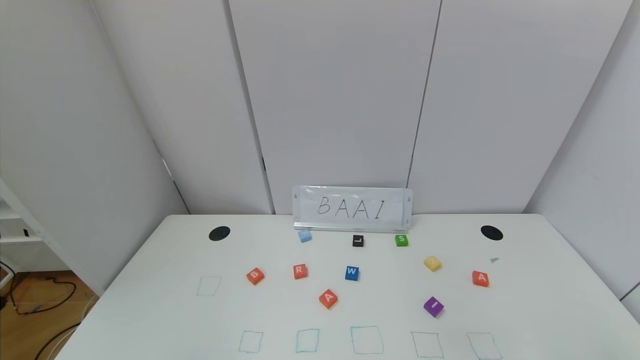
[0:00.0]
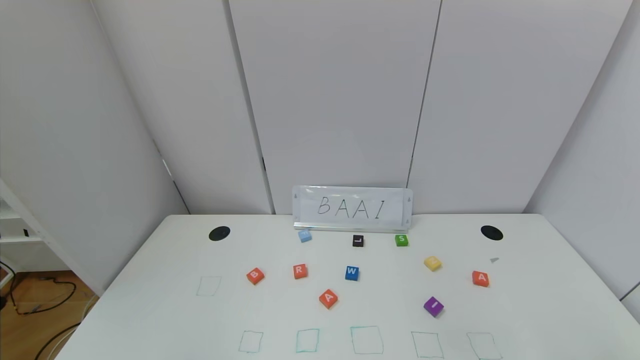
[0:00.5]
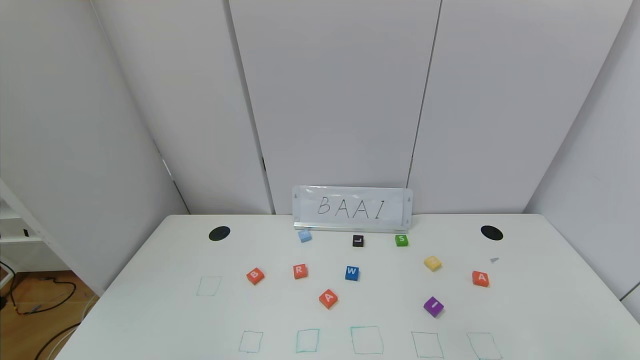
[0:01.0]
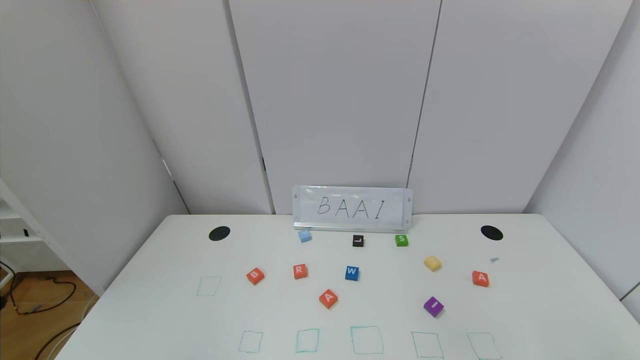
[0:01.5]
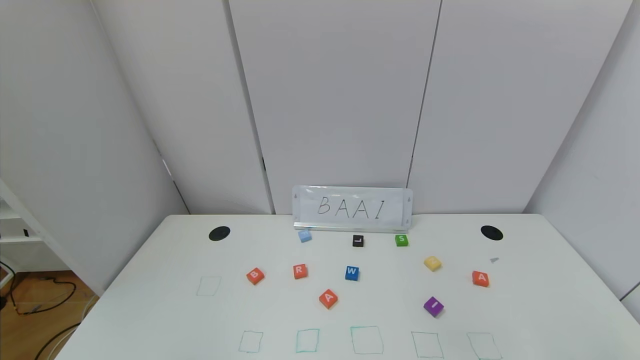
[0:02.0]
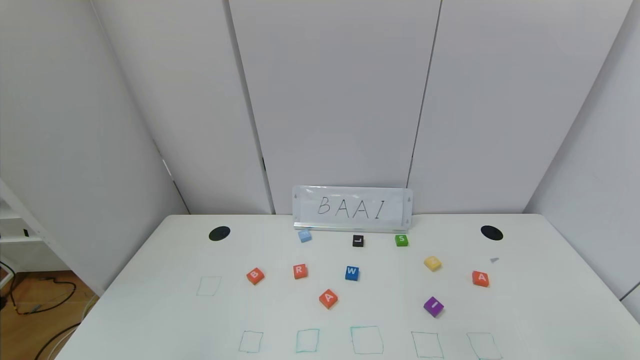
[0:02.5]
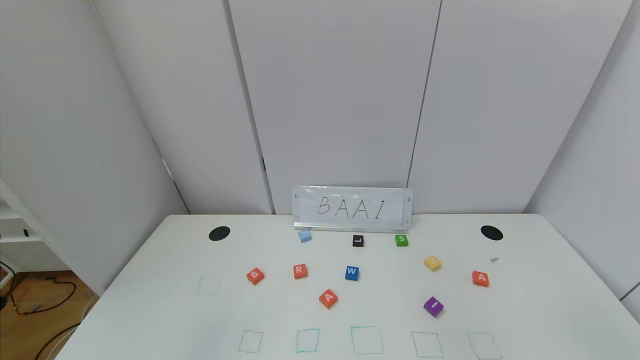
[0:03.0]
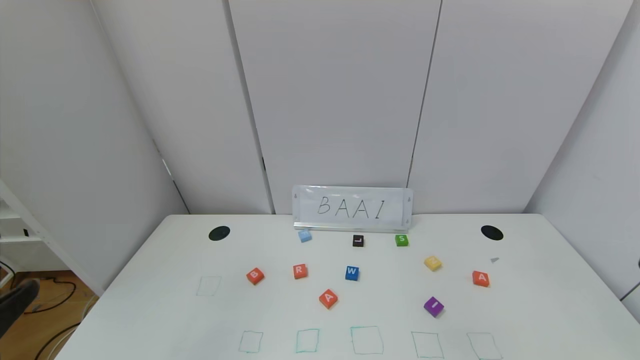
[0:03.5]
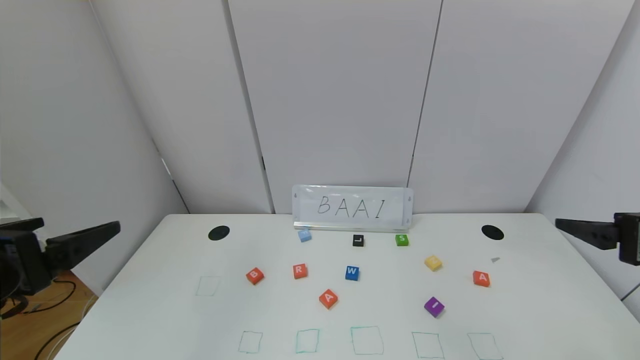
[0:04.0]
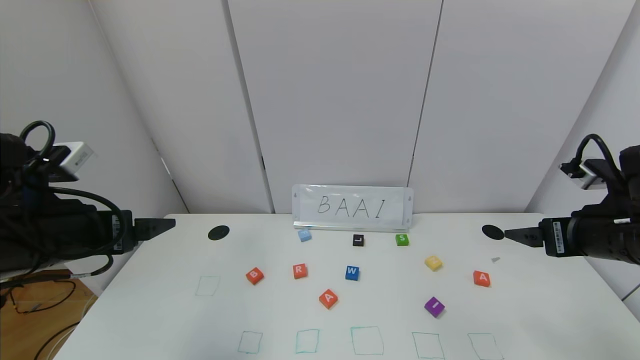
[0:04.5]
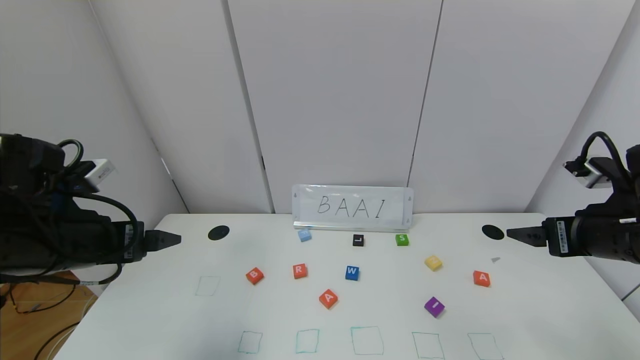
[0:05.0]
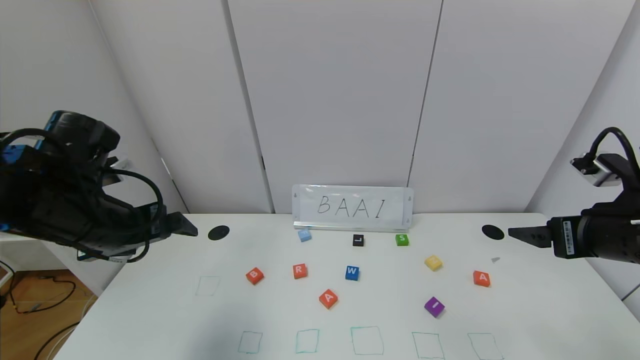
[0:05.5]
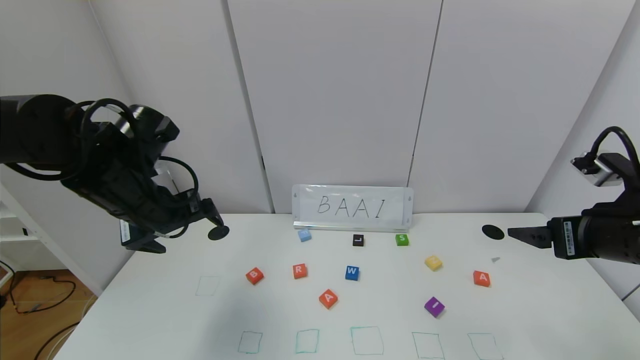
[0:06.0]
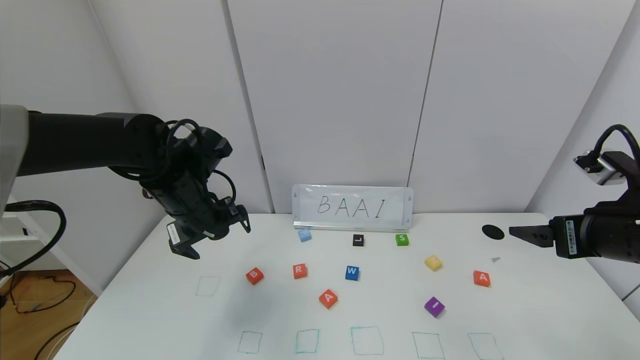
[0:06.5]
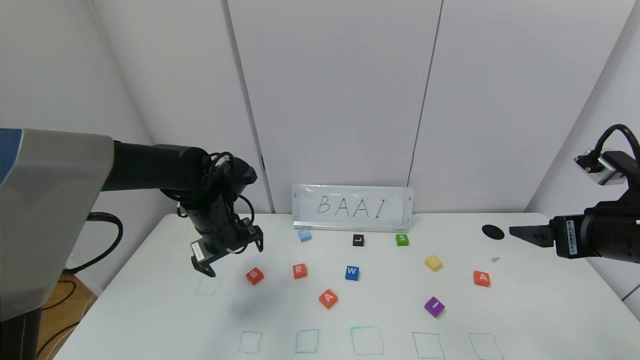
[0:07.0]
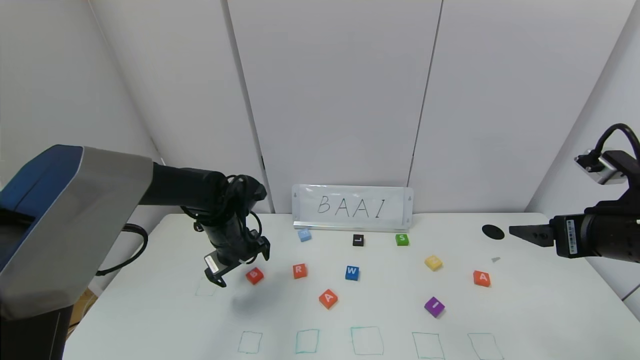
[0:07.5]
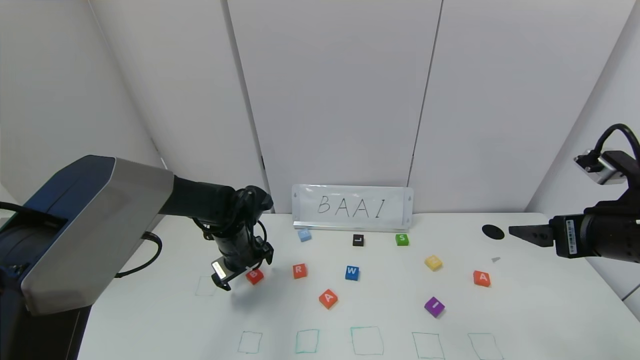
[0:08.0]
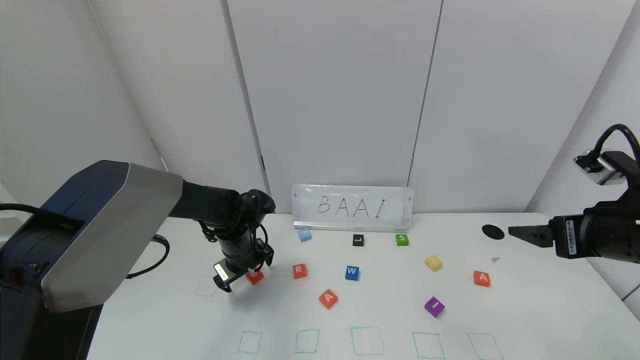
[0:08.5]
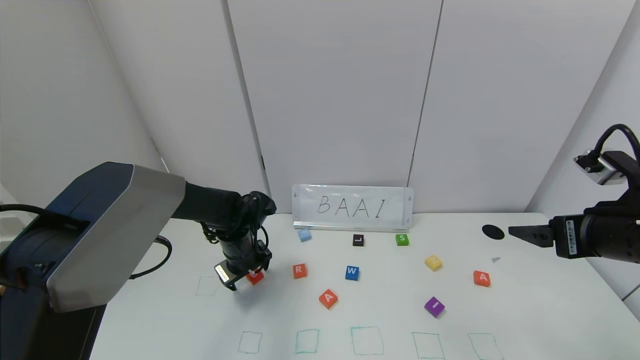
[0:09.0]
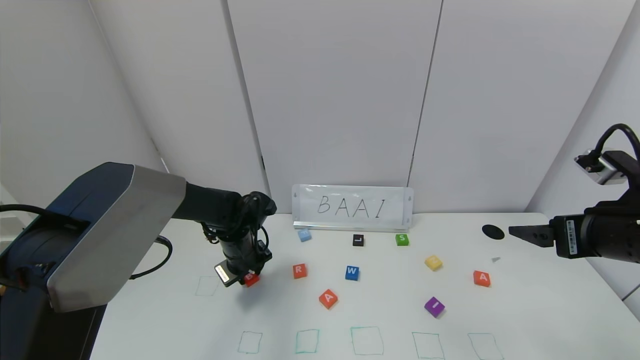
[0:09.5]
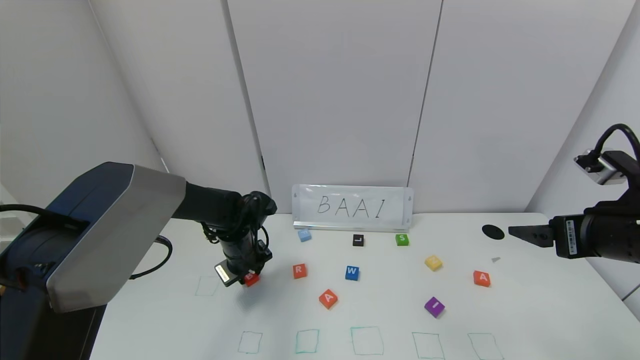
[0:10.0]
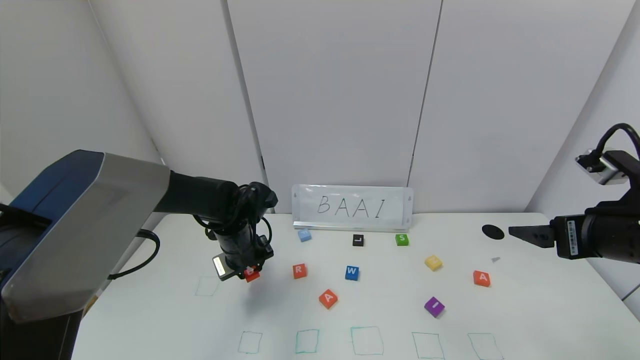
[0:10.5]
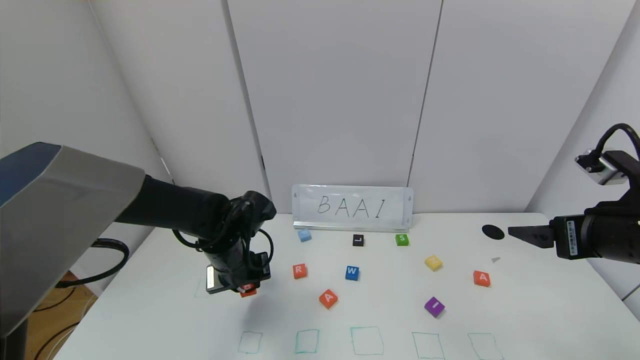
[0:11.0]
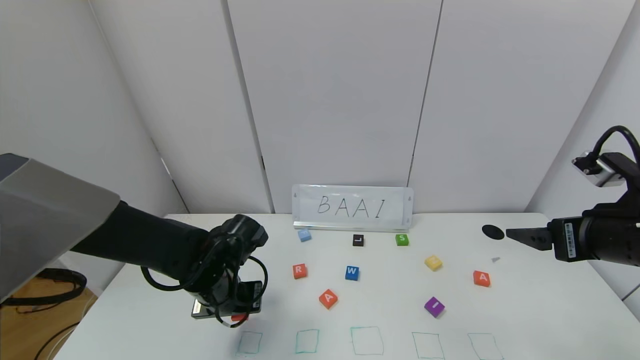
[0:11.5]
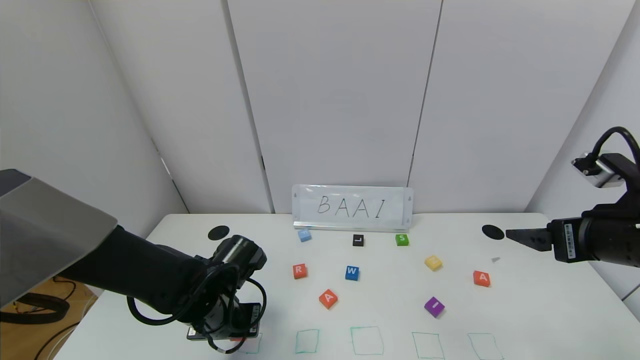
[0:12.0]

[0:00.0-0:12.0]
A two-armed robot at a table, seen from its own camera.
Task of the whole recording: use the gripper to find blocks with the letters b, a, a, and i on the table and arrange them into BAAI, then find r and N and turn the arranged baai into brian.
0:00.0 to 0:02.0: The two grippers keep their place.
0:02.0 to 0:04.0: The right gripper is displaced forward and upward by roughly 25 cm; the left gripper heads upward and forward, covering roughly 25 cm.
0:04.0 to 0:06.0: The right gripper moves roughly 5 cm. The left gripper heads forward, covering some 20 cm.
0:06.0 to 0:08.0: The left gripper is displaced downward, forward and to the right by about 20 cm.
0:08.0 to 0:10.0: The left gripper closes up.
0:10.0 to 0:12.0: The left gripper is displaced backward by approximately 15 cm.

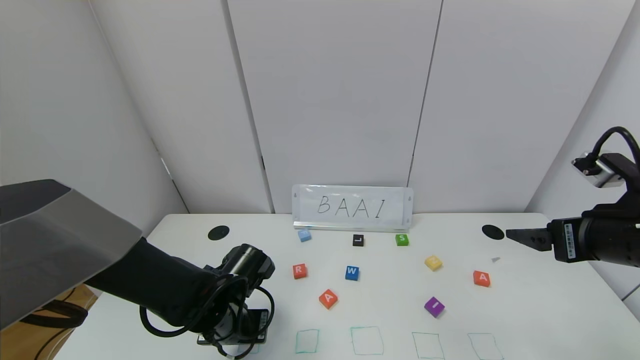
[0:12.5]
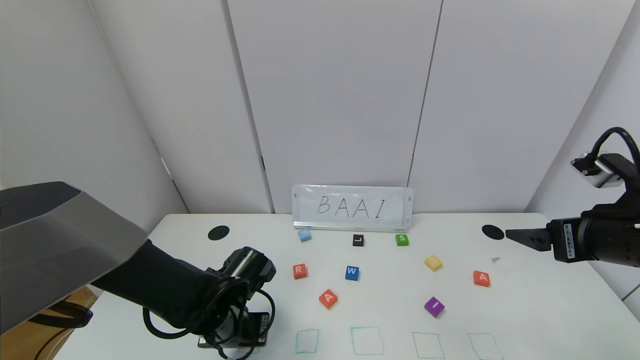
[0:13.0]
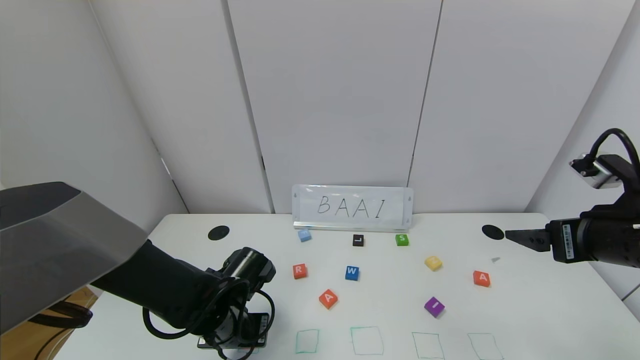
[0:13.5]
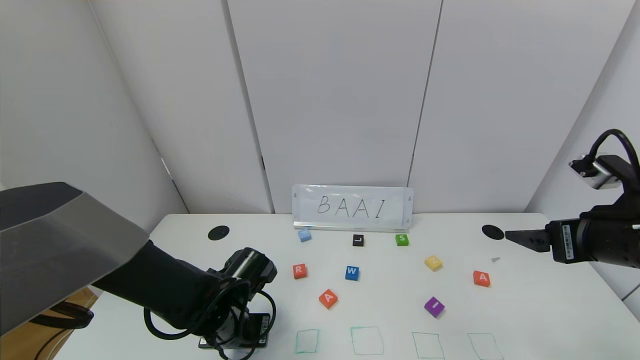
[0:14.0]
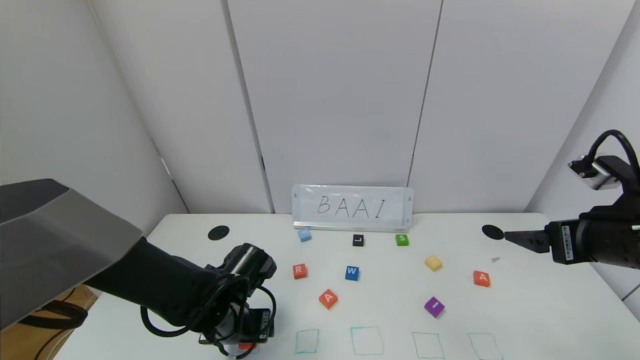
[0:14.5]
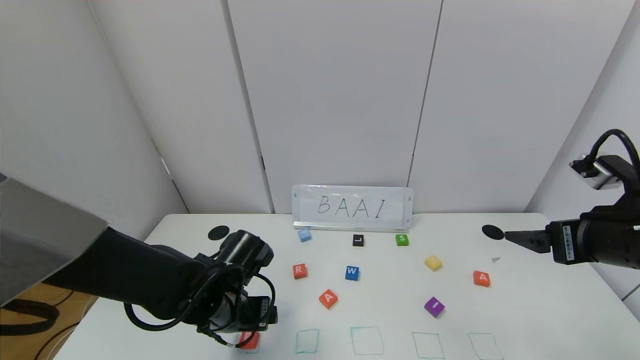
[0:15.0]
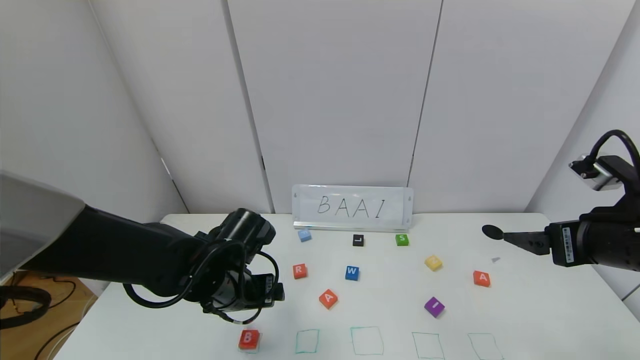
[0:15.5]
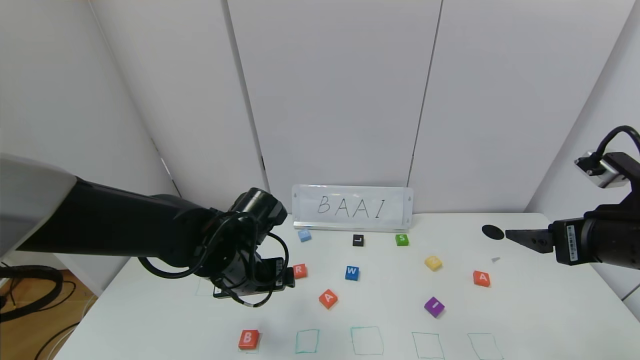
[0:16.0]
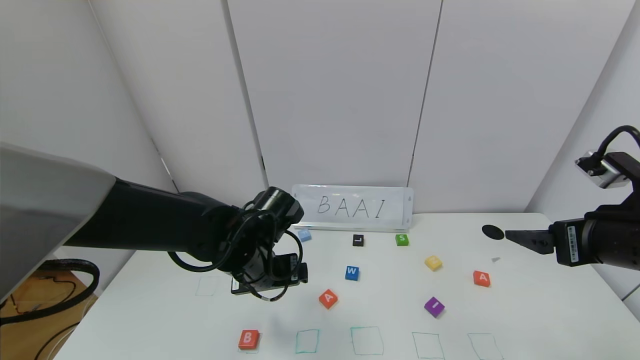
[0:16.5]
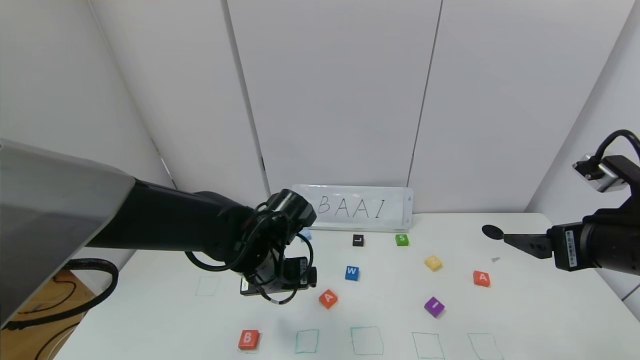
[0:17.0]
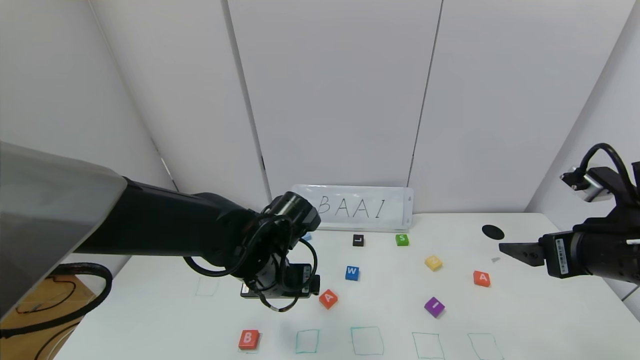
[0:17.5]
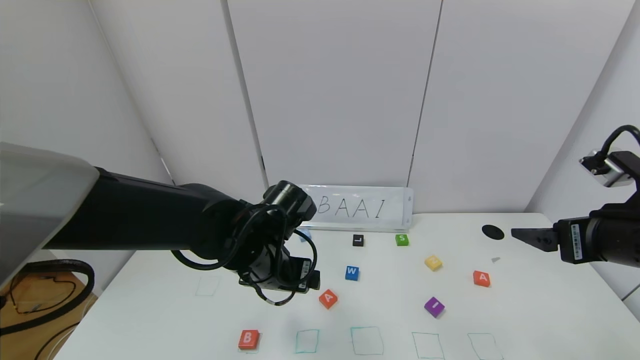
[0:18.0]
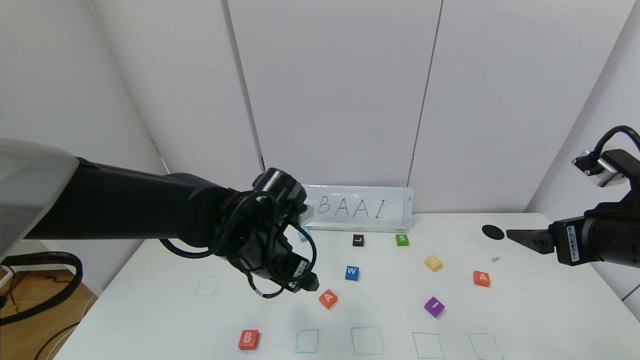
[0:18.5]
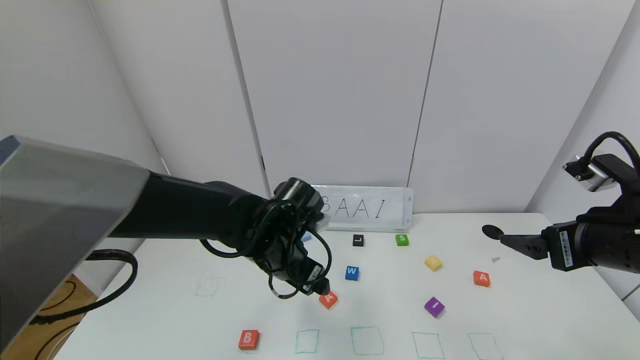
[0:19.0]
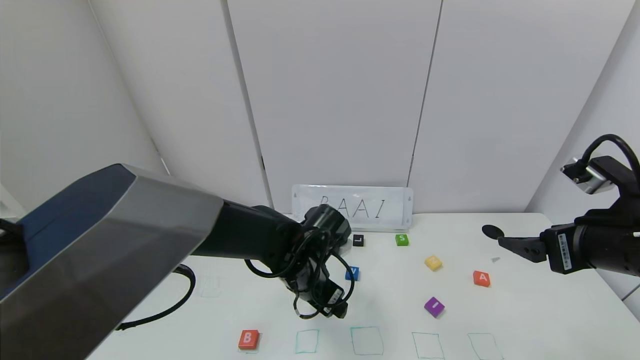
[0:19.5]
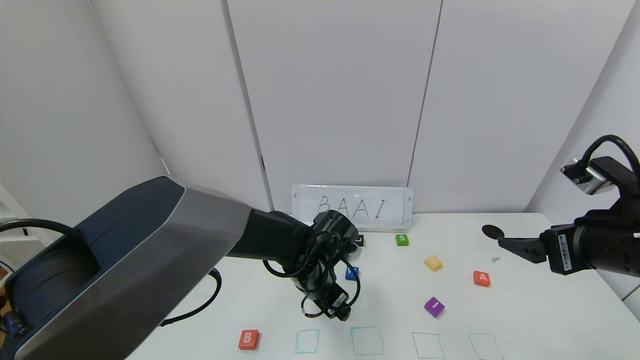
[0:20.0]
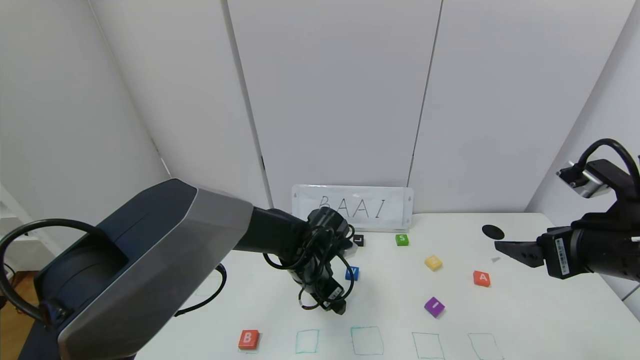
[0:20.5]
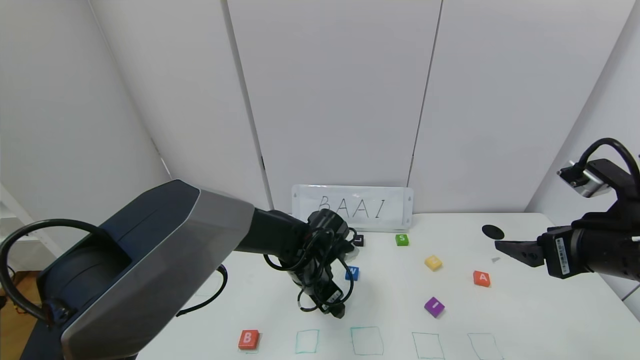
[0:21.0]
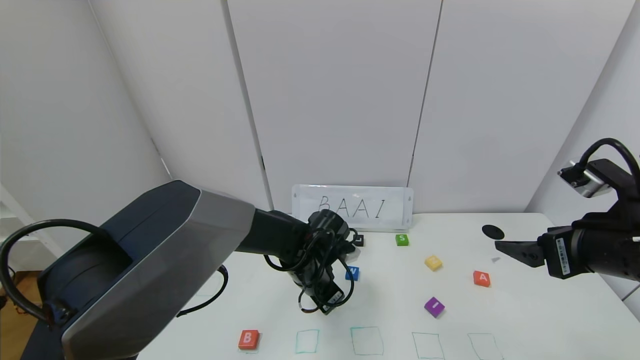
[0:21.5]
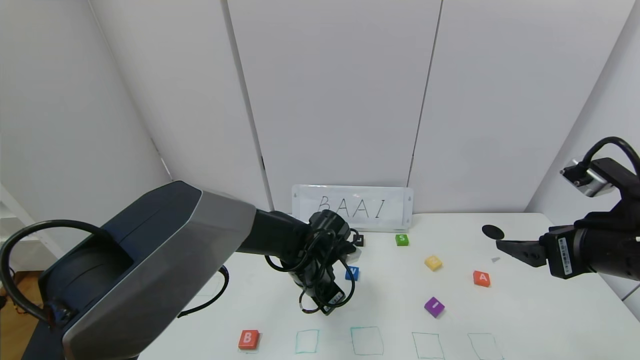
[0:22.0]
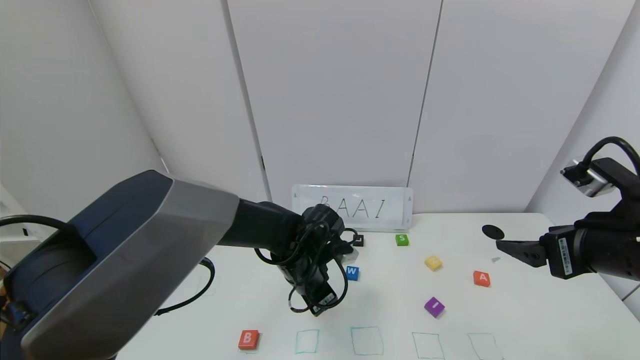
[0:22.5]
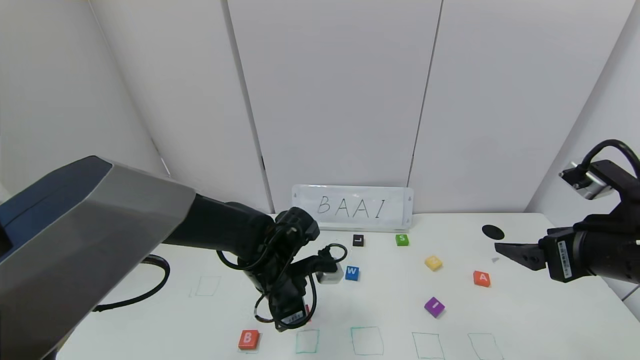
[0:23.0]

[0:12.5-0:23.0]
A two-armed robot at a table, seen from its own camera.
Task of the whole recording: use the gripper to find blocks with the letters b, a, a, and i on the table and arrange them into BAAI, then find r and N and turn the arranged baai into brian.
0:12.5 to 0:14.5: The left gripper opens.
0:14.5 to 0:16.5: The left gripper shifts about 10 cm upward.
0:19.0 to 0:21.0: The left gripper goes approximately 10 cm downward.
0:21.0 to 0:23.0: The left gripper ends up approximately 5 cm from where it was, and closes its fingers.
